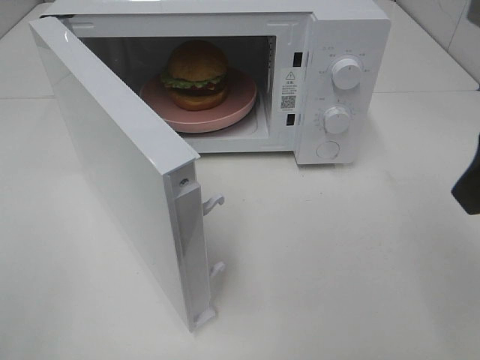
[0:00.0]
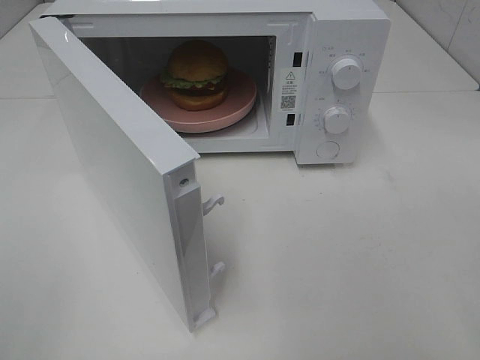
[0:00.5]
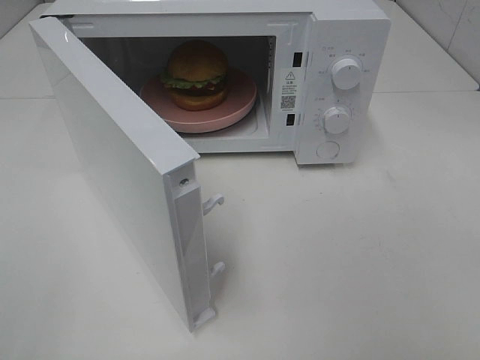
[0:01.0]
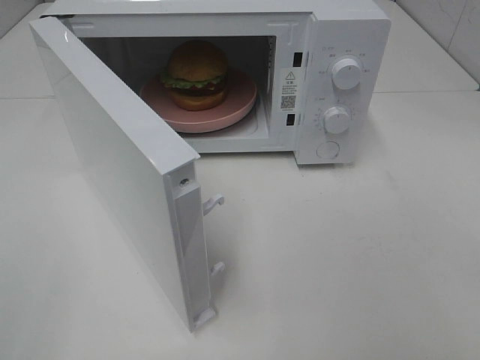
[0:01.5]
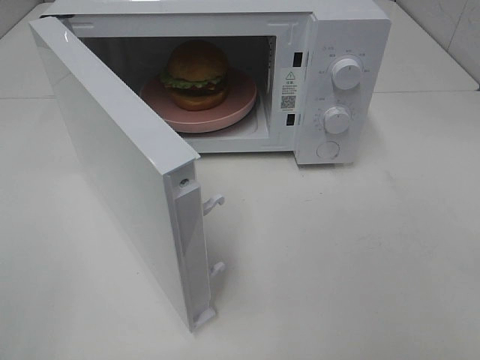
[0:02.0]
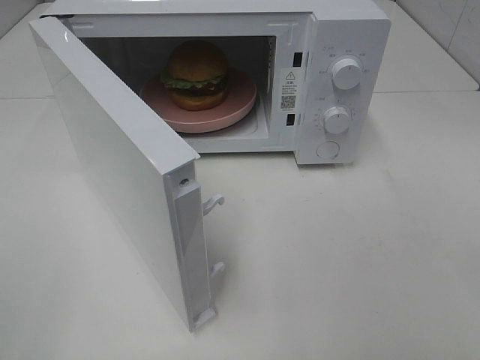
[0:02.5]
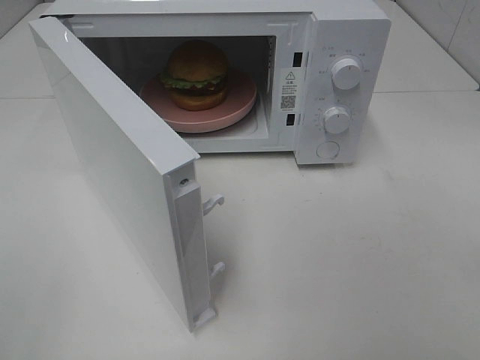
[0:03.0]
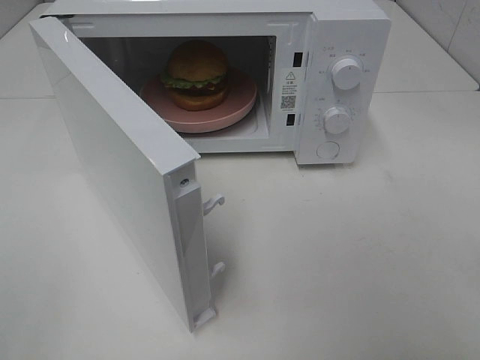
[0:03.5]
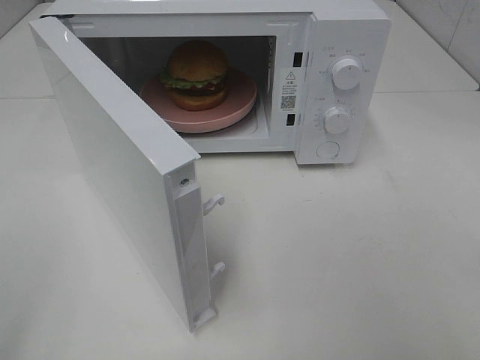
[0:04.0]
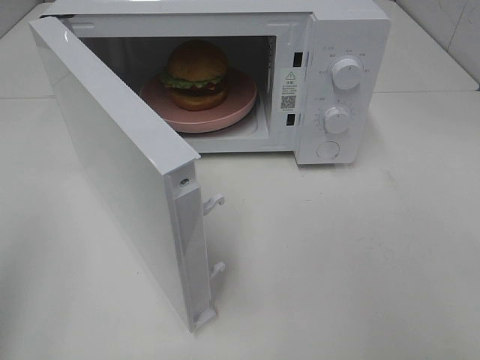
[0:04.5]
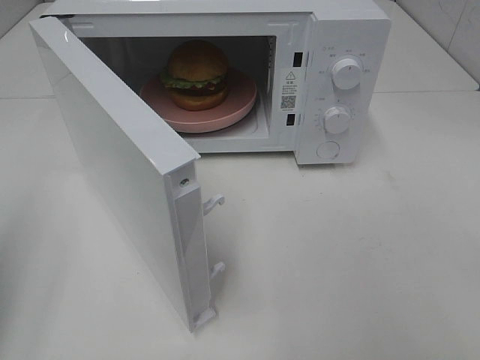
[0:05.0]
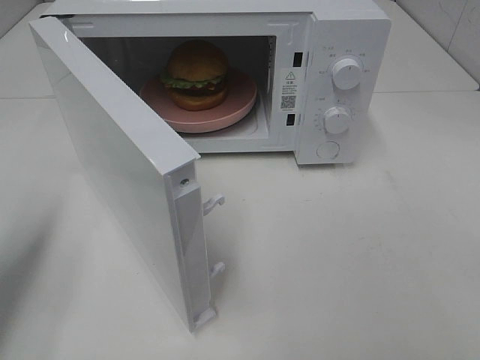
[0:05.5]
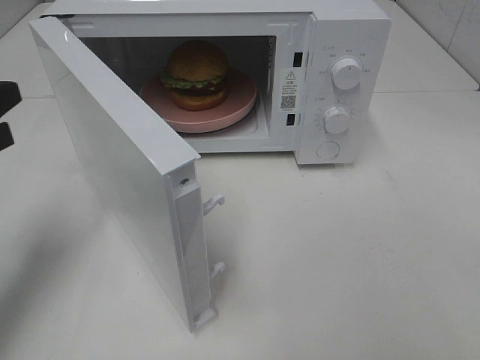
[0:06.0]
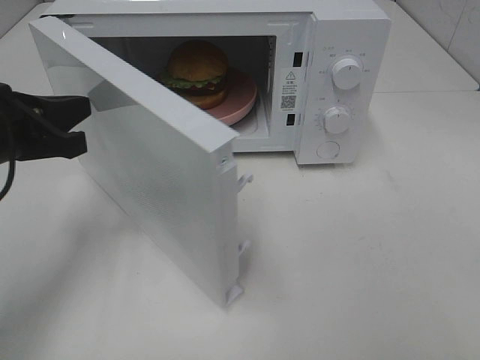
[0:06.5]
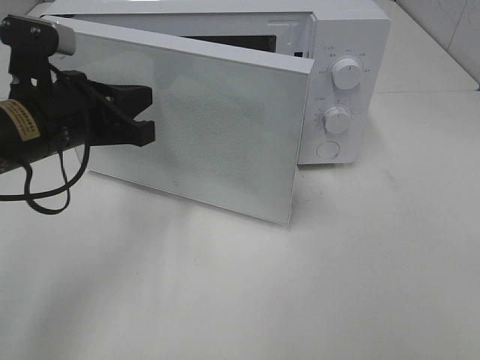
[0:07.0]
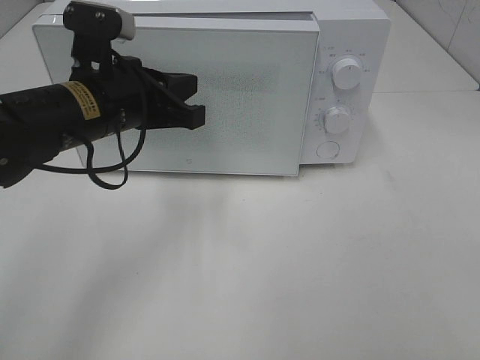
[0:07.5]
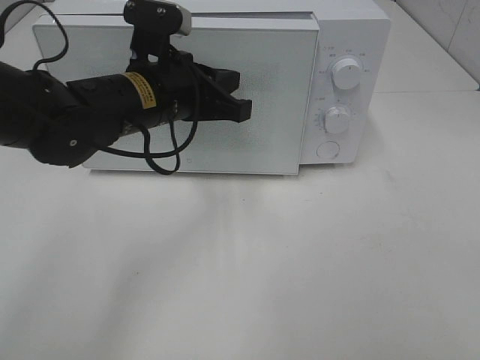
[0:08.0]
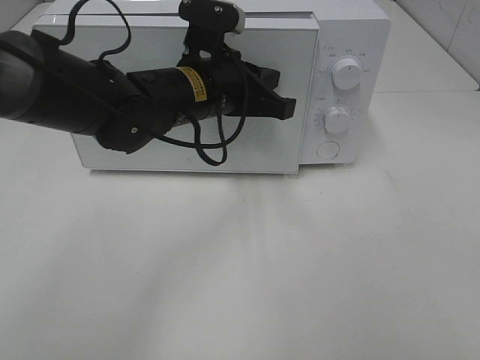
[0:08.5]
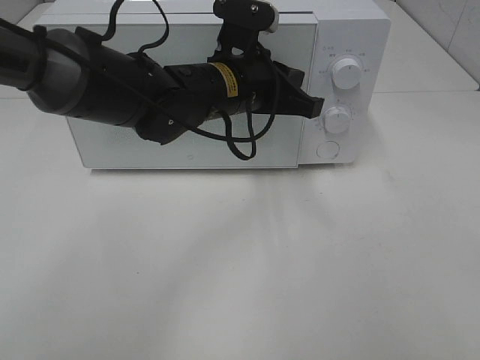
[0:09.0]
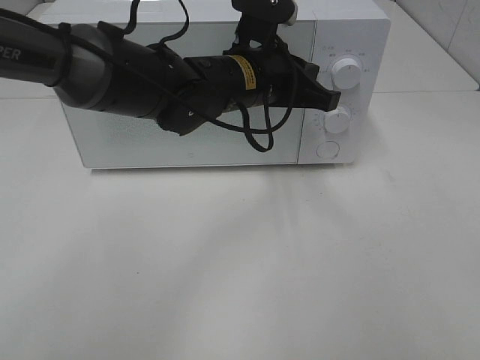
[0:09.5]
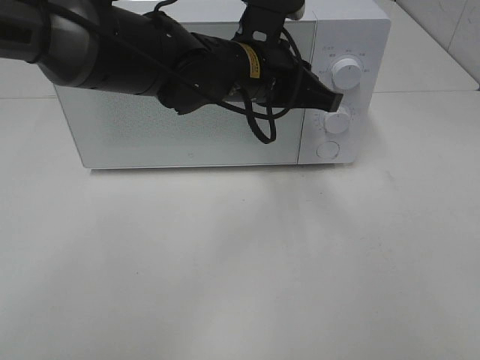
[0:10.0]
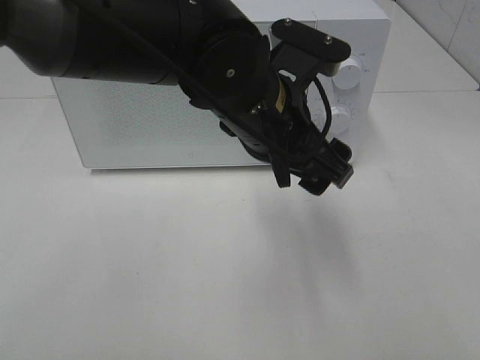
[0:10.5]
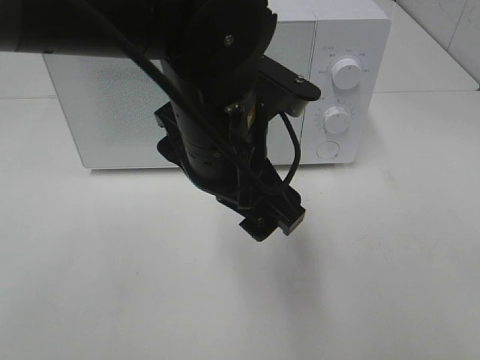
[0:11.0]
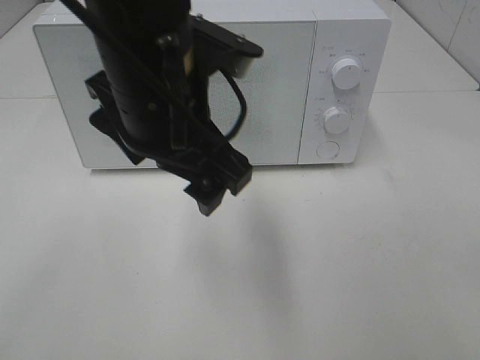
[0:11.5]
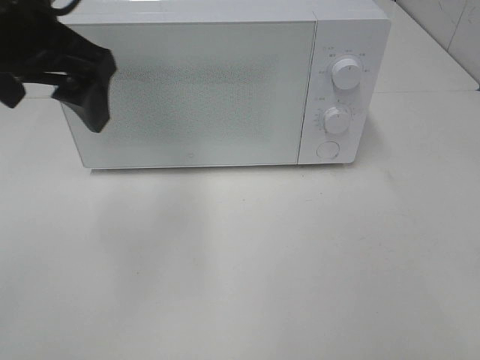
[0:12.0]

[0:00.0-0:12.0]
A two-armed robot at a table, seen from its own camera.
Task of the whole recording: Heat the burger.
Step, 0:00.0 to 0:10.0: Left hand: close the microwave door.
0:00.0 to 0:02.0: The right gripper is displaced backward and to the right by about 20 cm.
0:04.0 to 0:06.0: The left gripper travels forward and downward by roughly 25 cm, and closes up.
0:06.0 to 0:08.0: The left gripper is displaced to the right and forward by about 20 cm.
0:08.0 to 0:10.0: The left gripper travels to the right by approximately 10 cm.
0:10.0 to 0:12.0: The left gripper travels to the left and upward by about 20 cm, and opens its fingers.

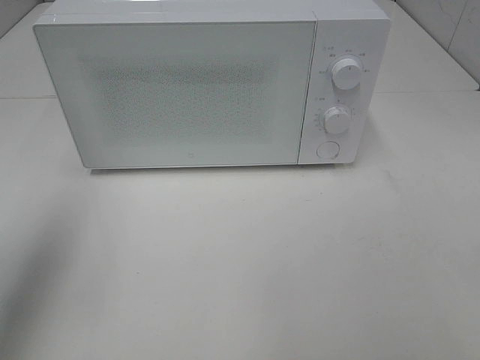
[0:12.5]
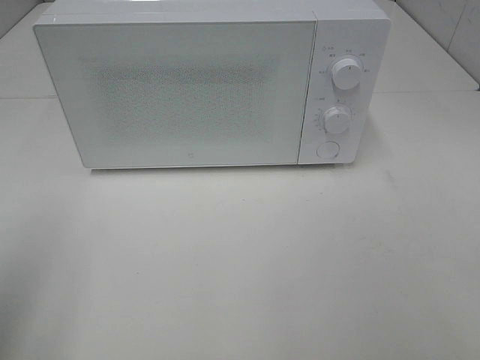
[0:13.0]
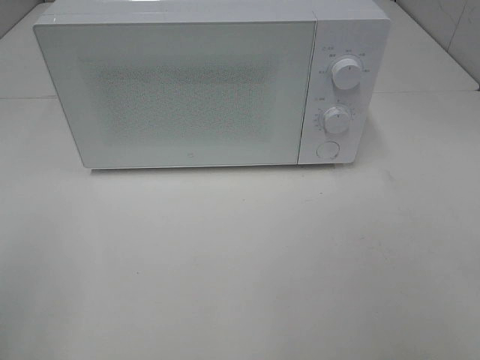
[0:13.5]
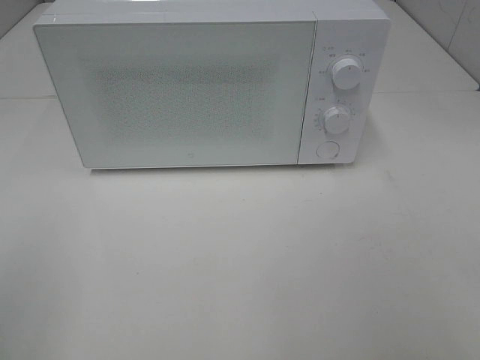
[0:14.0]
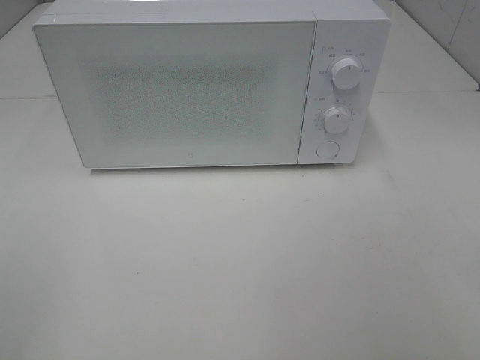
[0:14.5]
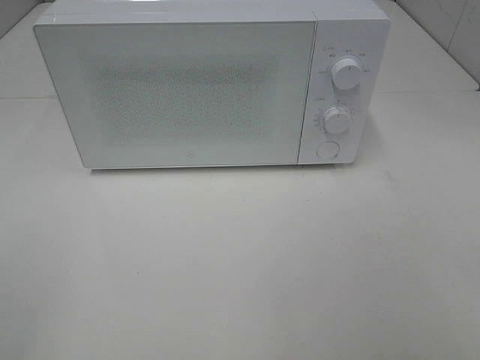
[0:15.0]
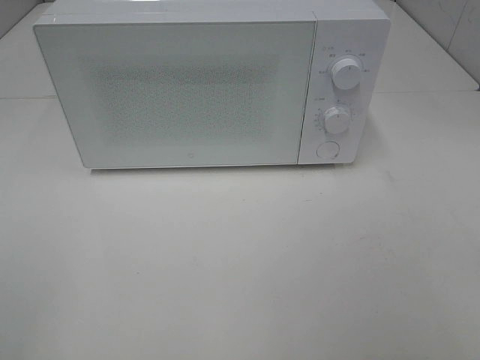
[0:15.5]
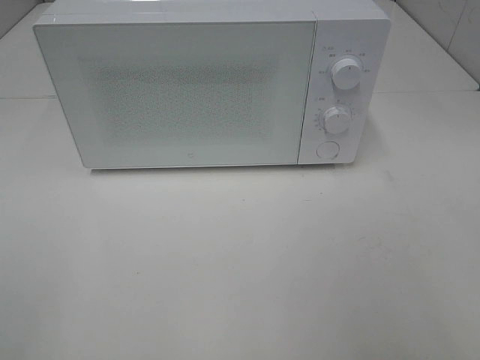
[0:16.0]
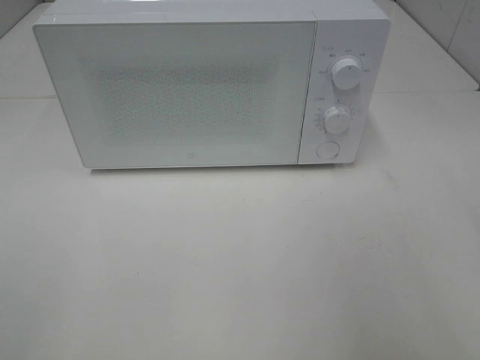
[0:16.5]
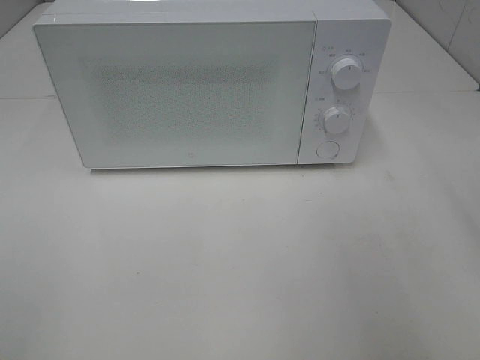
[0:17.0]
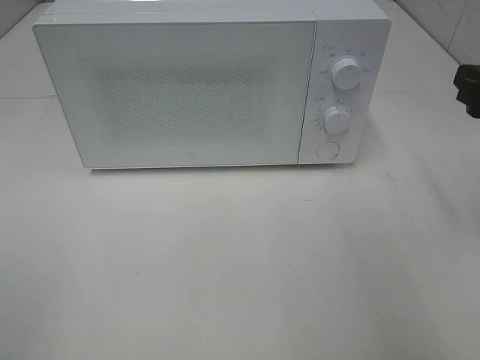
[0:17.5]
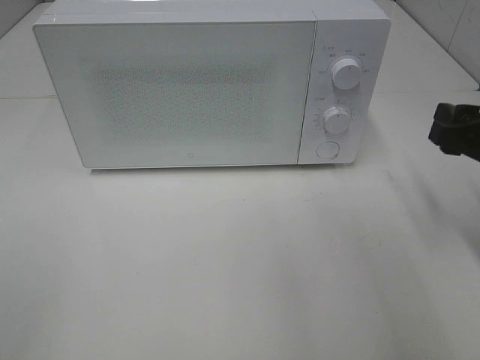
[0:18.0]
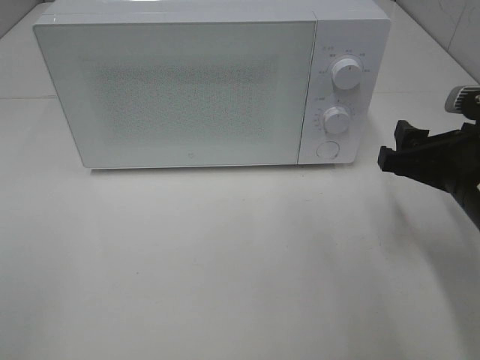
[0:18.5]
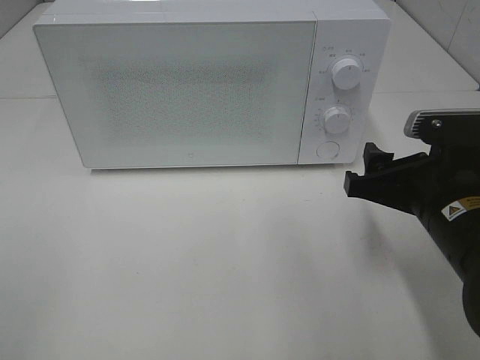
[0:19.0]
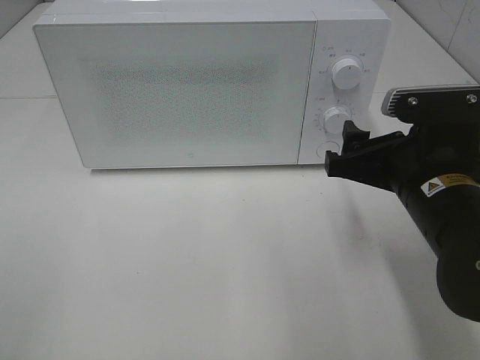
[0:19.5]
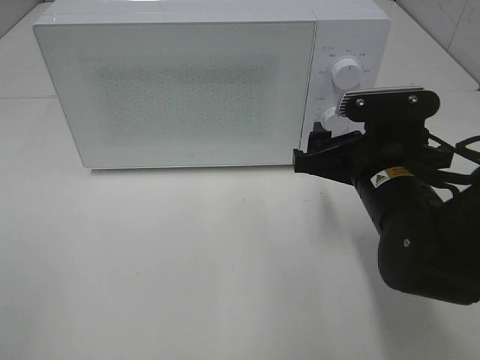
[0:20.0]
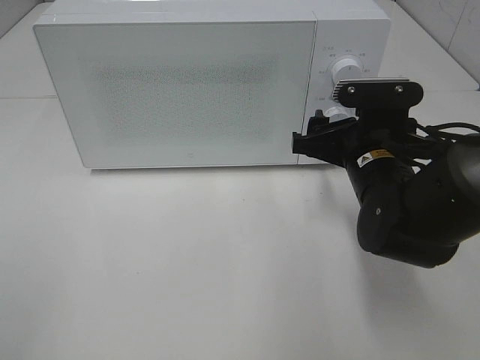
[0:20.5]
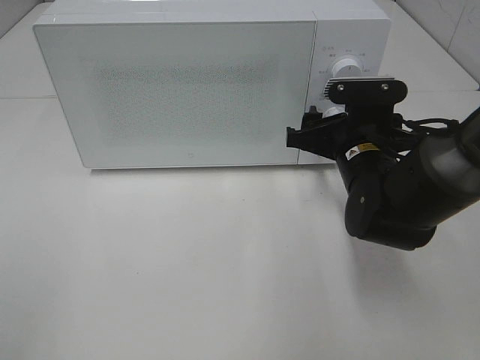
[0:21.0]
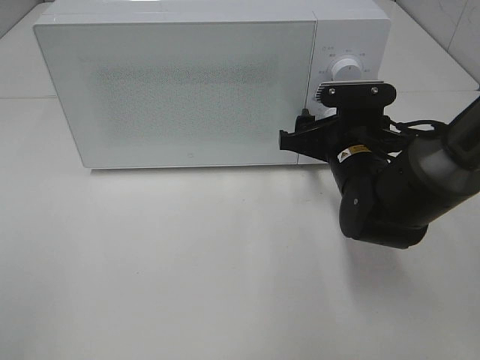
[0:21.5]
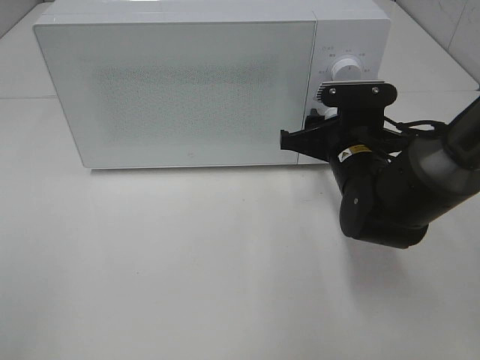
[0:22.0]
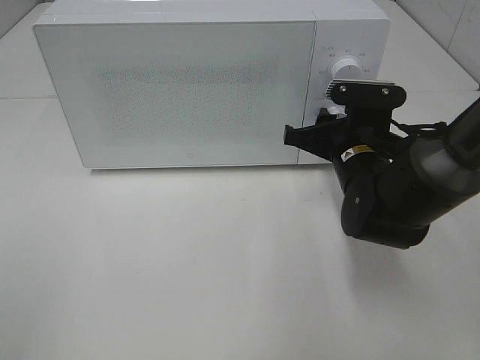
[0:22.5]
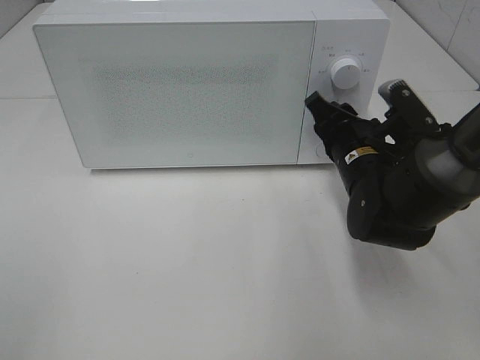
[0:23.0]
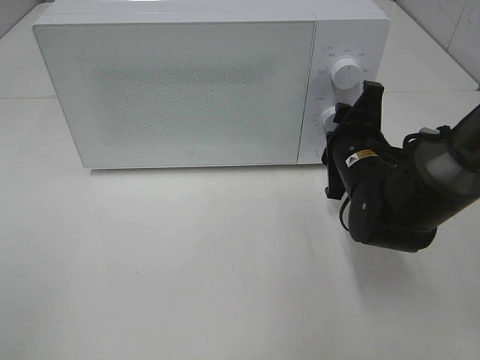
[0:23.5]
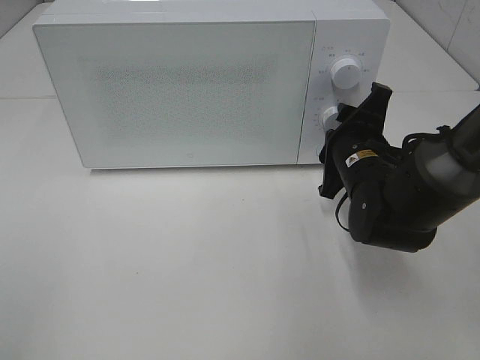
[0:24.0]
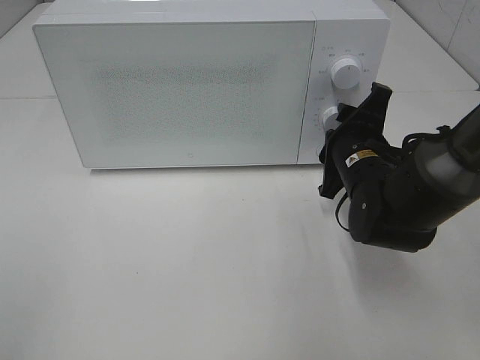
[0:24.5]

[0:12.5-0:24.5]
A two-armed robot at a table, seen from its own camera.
Task of the whole recording: Heat the burger.
0:12.5 to 0:14.5: The left gripper moves backward, some 20 cm.
0:16.5 to 0:18.5: The right gripper heads downward, forward and to the left, covering about 20 cm.
0:18.5 to 0:20.5: The right gripper moves to the left and forward, about 10 cm.
0:20.5 to 0:22.5: The right gripper closes.

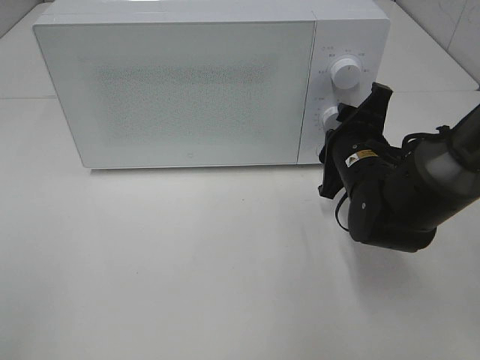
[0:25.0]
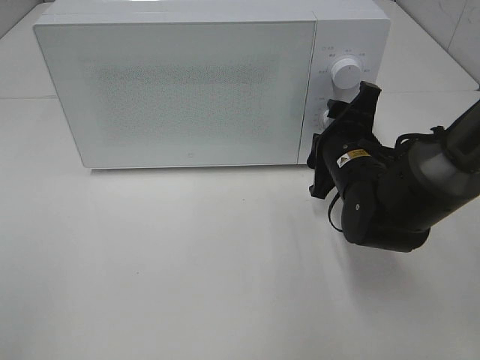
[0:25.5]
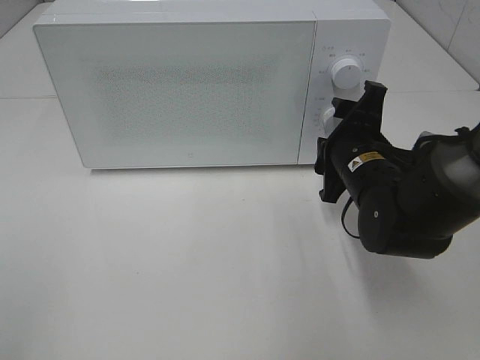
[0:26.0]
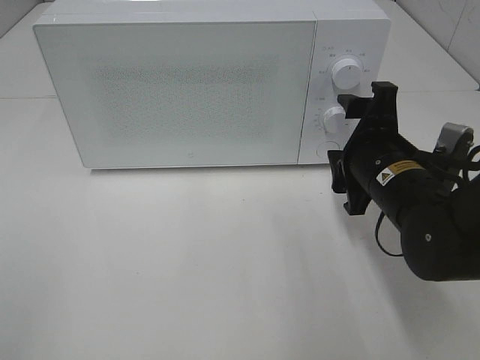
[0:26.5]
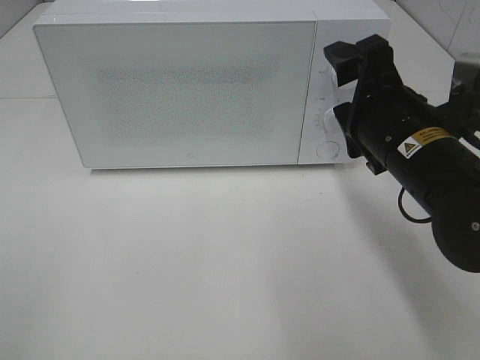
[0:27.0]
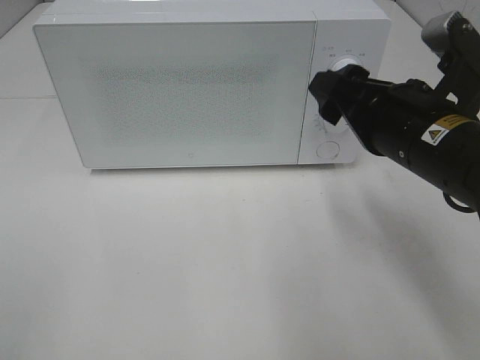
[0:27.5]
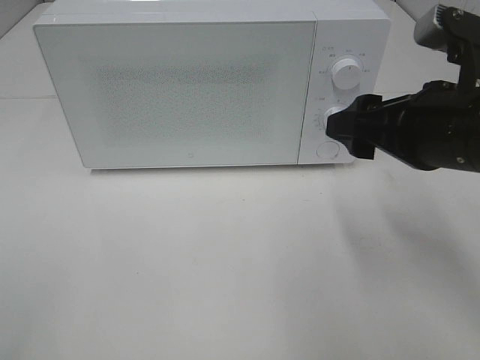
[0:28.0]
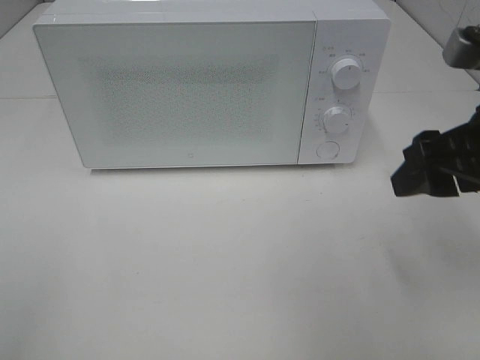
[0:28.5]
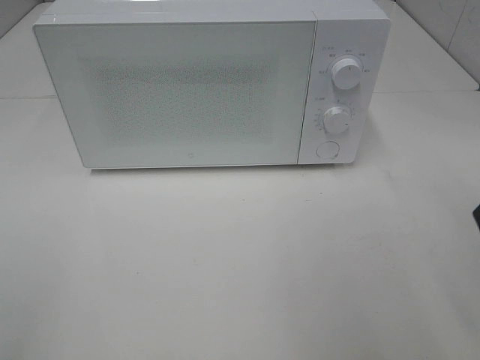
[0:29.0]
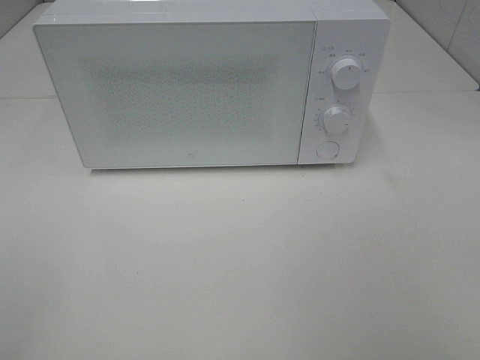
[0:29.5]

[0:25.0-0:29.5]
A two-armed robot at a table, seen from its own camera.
Task of the whole recording: Heat the burger.
0:25.0 to 0:27.0: The right gripper heads upward and backward, covering about 10 cm, and opens.
0:27.0 to 0:29.5: The right gripper is displaced backward, to the right and upward by about 30 cm.
